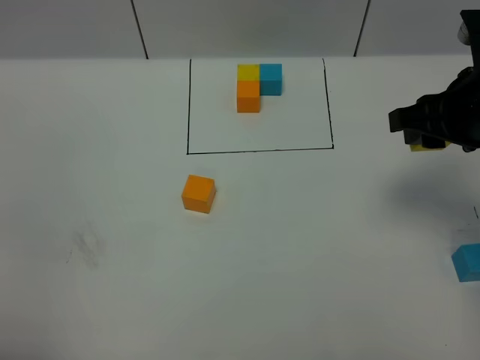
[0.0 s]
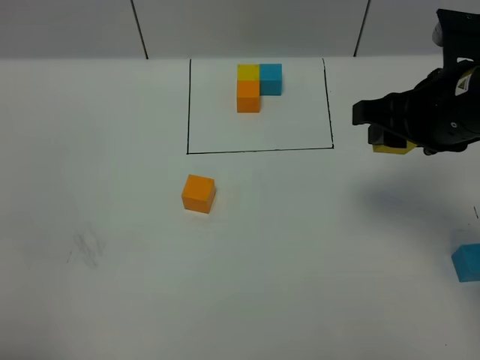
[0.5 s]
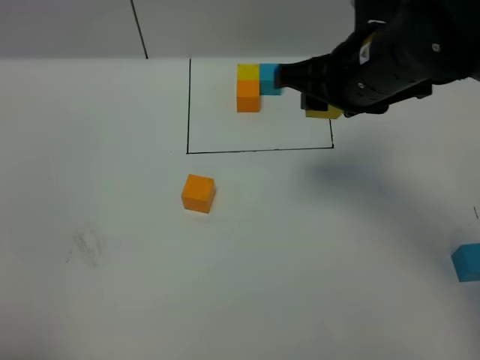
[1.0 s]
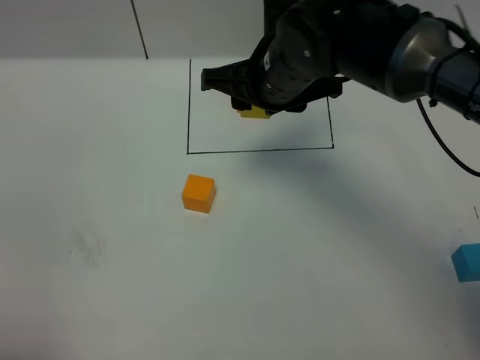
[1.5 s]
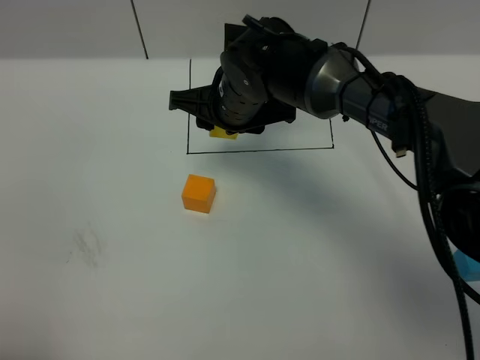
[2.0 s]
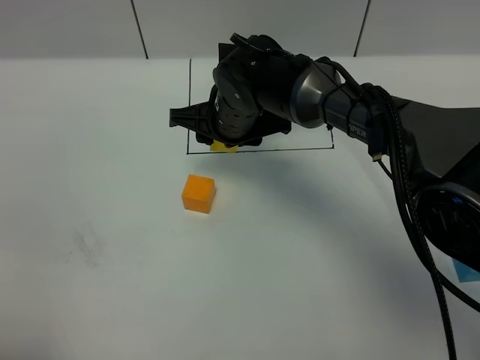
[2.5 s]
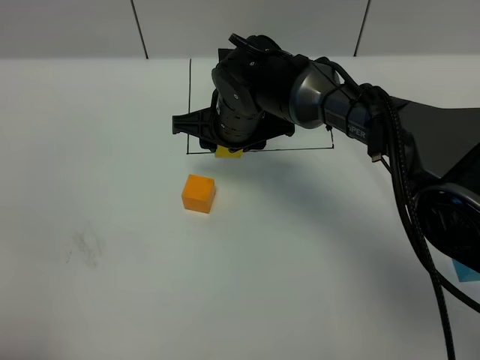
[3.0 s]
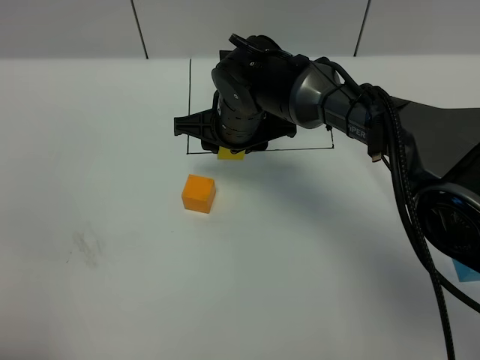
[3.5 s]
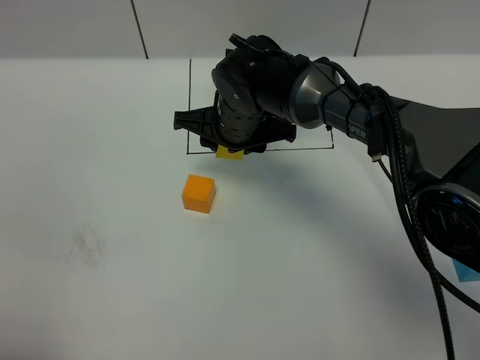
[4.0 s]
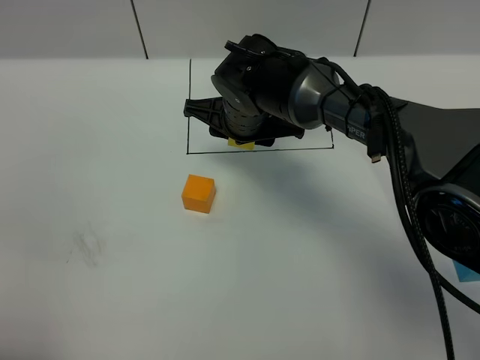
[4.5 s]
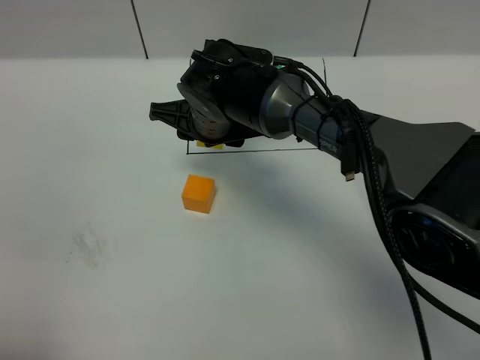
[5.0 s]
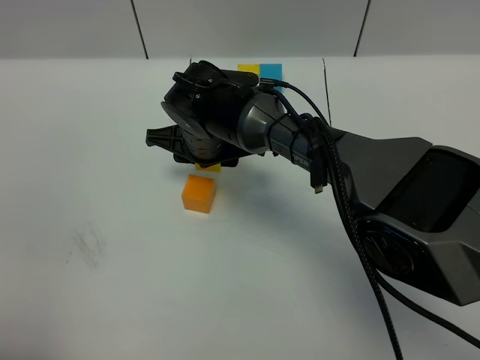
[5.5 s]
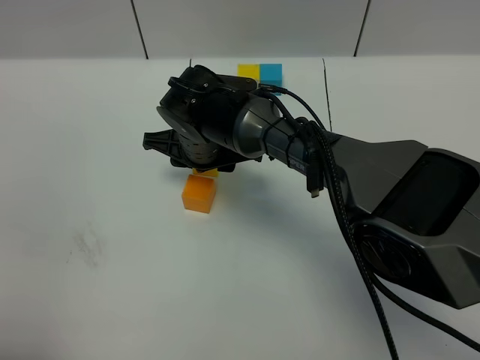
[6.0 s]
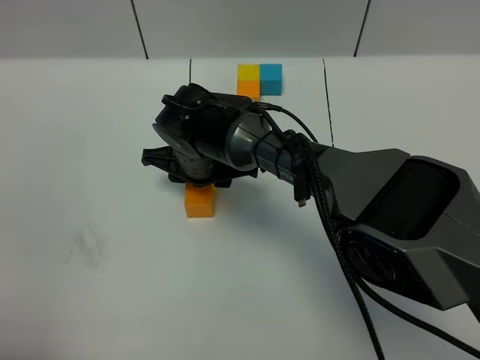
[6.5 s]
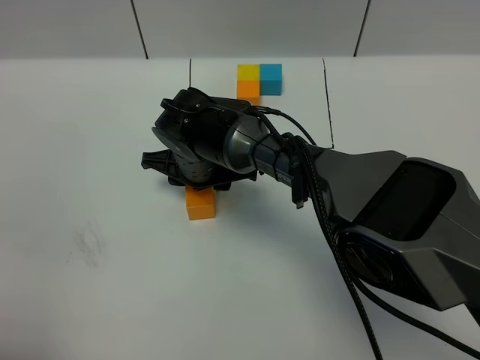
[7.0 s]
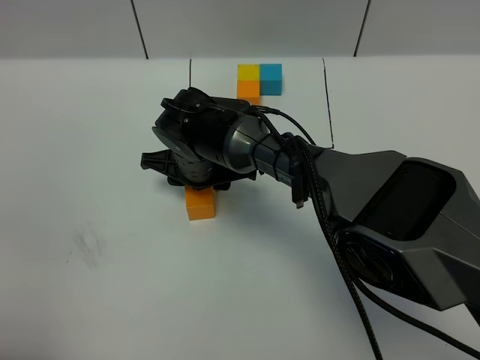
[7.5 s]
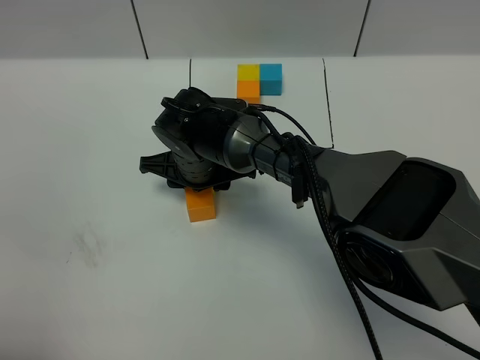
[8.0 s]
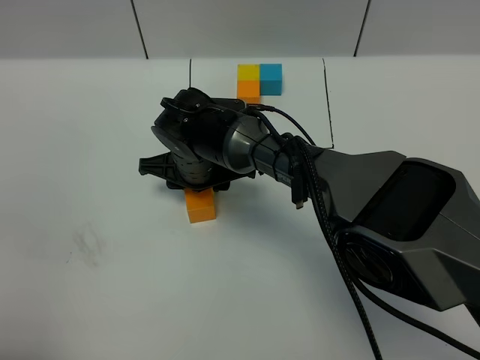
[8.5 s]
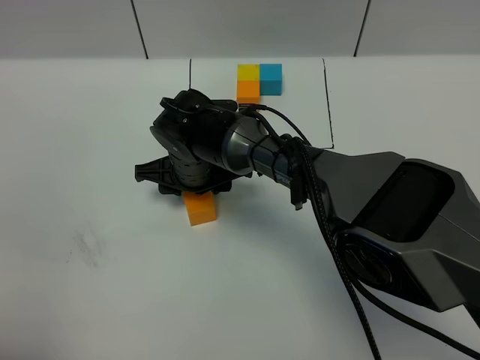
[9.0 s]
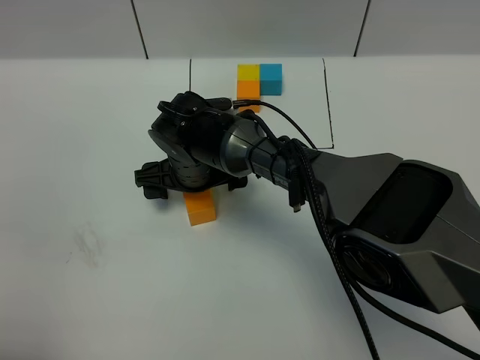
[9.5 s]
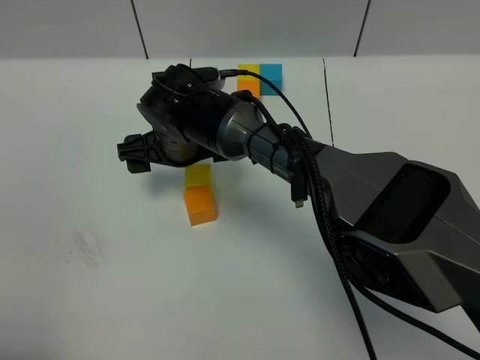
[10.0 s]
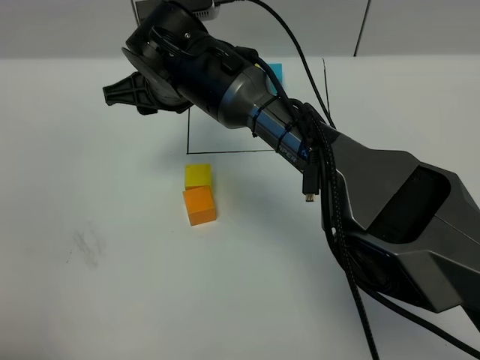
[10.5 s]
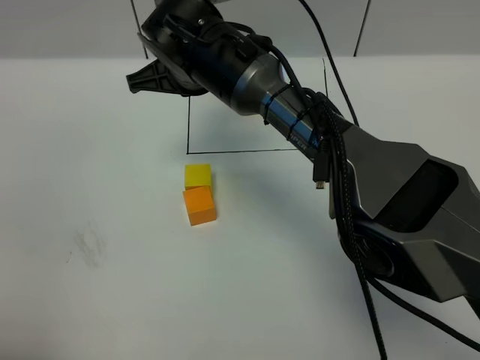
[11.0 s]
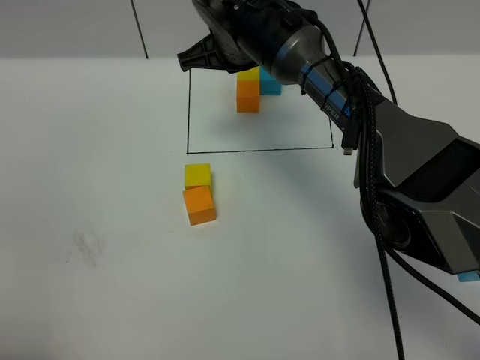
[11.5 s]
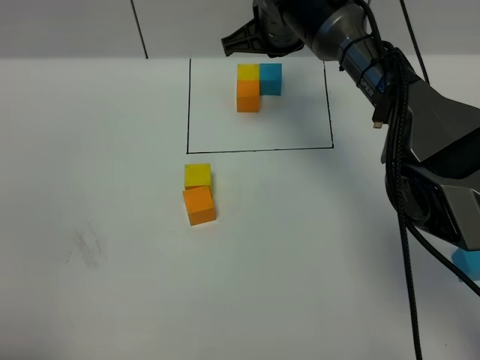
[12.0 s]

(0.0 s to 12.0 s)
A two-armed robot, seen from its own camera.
Task of the whole recording: According to the building block template in front, assemble the scattered blocks together.
Step, 0.0 s - 9.5 s: Put the yellow cube on the behind of the orange cube.
0.0 s - 2.0 s: The right gripper is displaced to the left and forward by approximately 25 cm.
2.0 s - 4.0 s: The grippers stay close to where they were, moving slightly.
4.0 s - 6.0 s: The right gripper moves to the left, some 5 cm.
6.0 s - 8.0 s: The grippers move only a little.
8.0 s - 10.0 s: The right gripper opens its fingers.
10.0 s - 12.0 s: The right gripper travels to the right, forward and upward by some 20 cm, and closes its fingers.

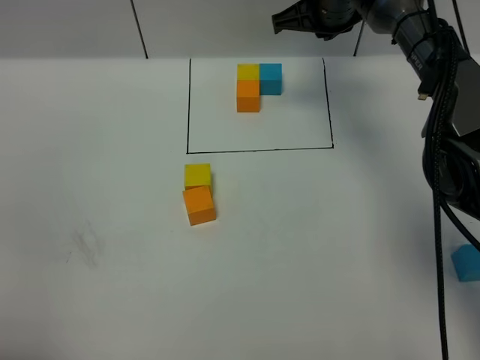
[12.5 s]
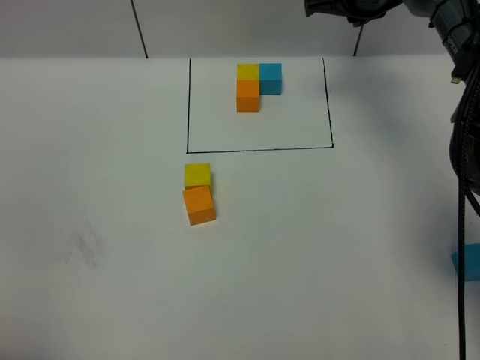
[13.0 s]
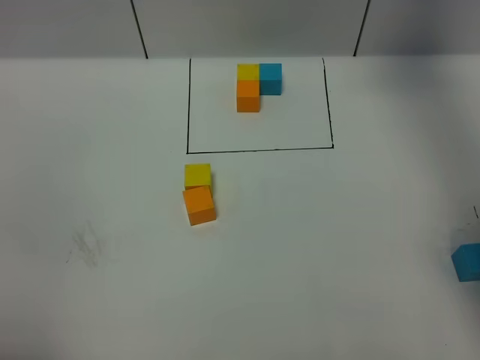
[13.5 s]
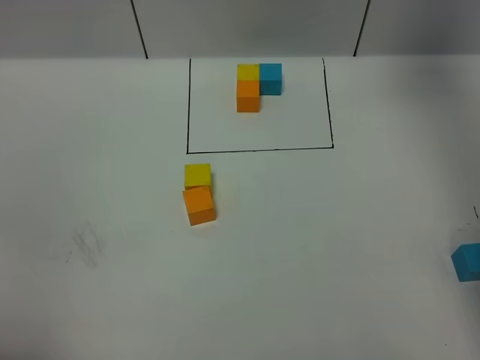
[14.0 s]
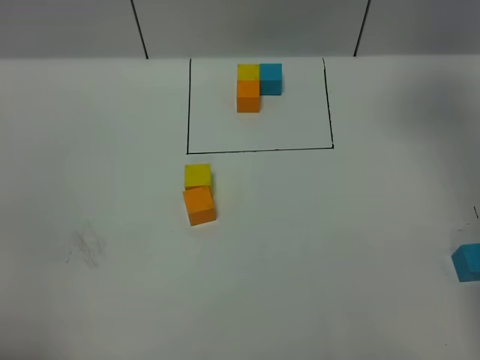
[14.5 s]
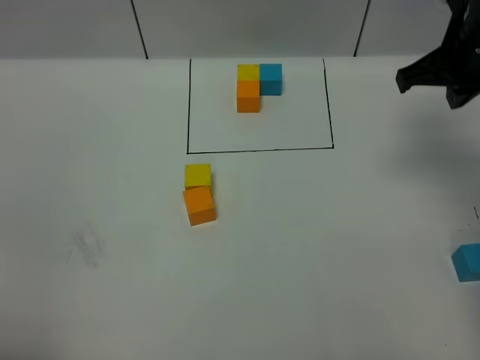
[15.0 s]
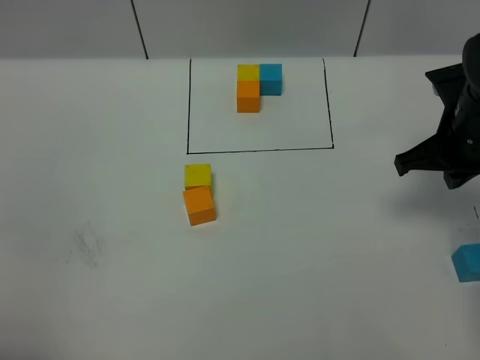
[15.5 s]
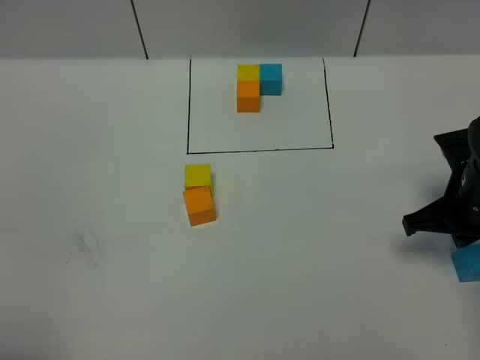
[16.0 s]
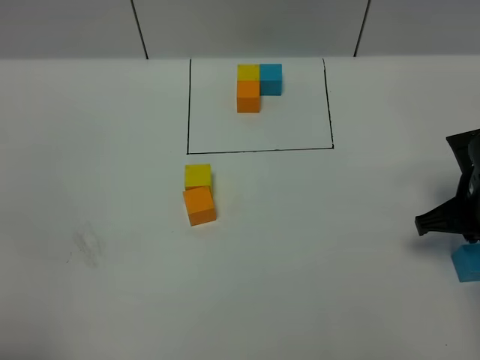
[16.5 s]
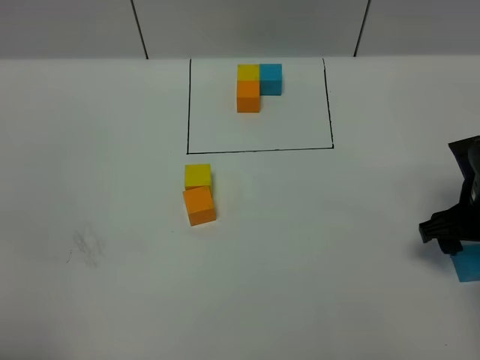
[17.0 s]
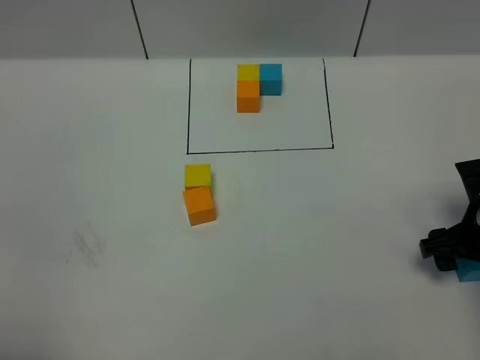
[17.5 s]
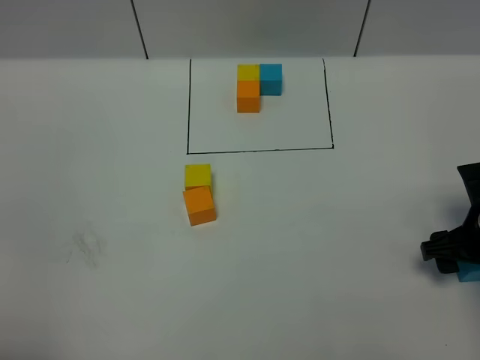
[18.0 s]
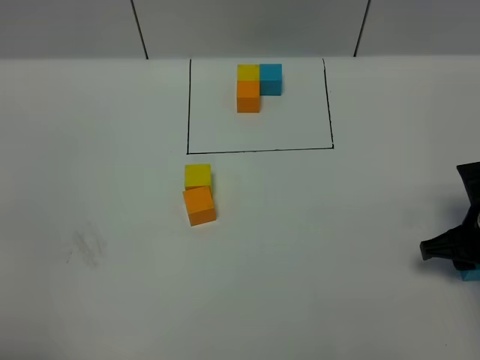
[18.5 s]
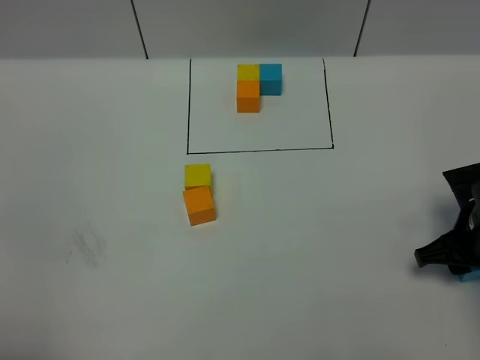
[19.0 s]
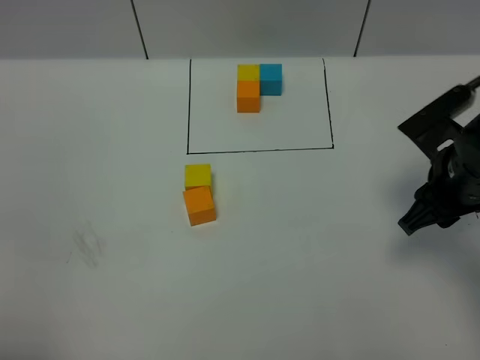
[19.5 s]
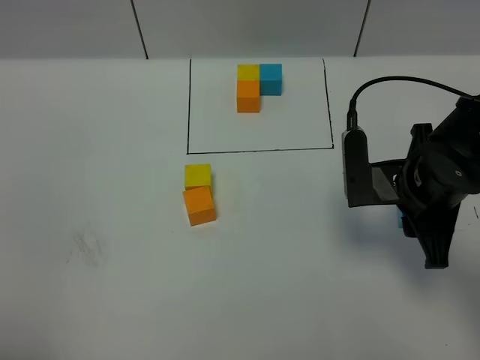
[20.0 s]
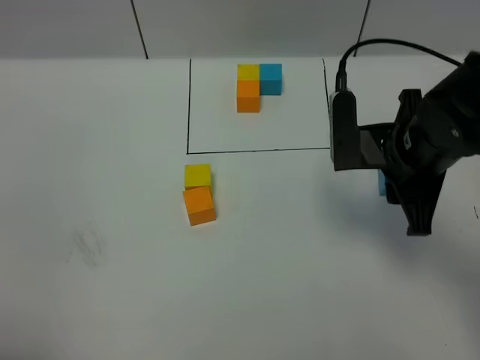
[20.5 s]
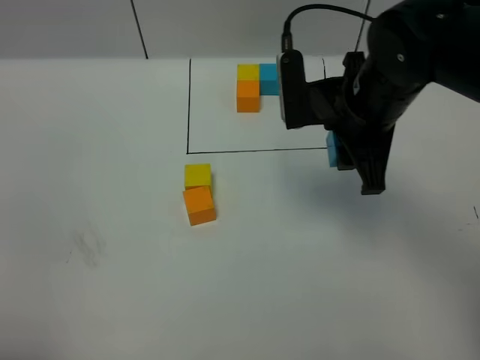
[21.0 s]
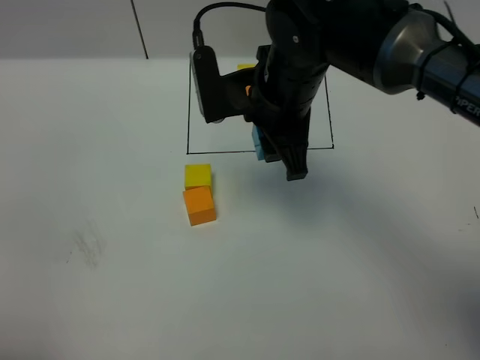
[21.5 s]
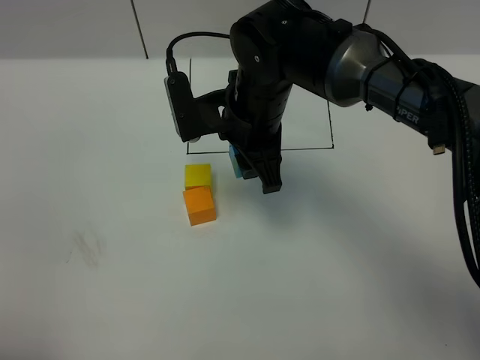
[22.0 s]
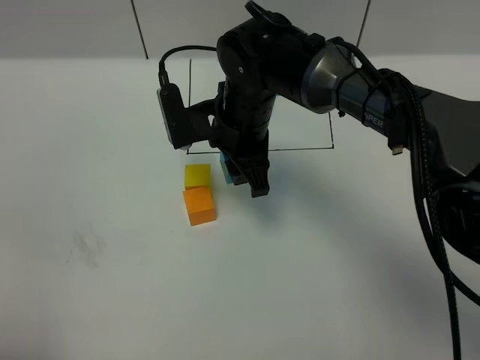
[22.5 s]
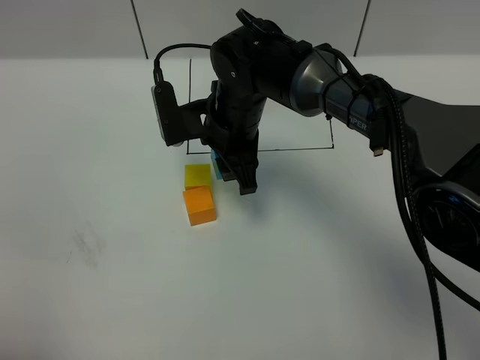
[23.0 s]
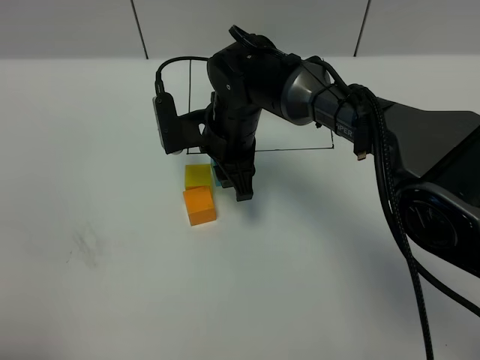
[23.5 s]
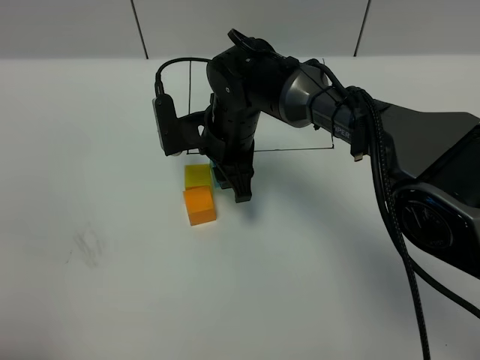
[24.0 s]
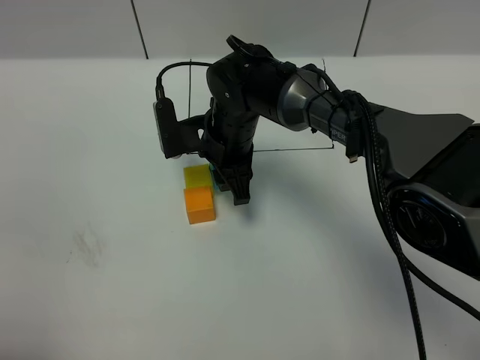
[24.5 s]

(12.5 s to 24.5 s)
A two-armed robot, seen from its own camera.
Task of the whole recording: According to the building block template in front, assemble the scattered blocks together.
12.5 s - 14.5 s: The right gripper moves upward, backward and to the right, roughly 20 cm.
14.5 s - 16.5 s: The right gripper is displaced downward and backward by approximately 25 cm.
16.5 s - 18.5 s: The right gripper opens.
18.5 s - 20.5 s: The right gripper is displaced upward and to the left by about 15 cm.
20.5 s - 22.5 s: The right gripper heads to the left and forward, covering some 20 cm.
22.5 s - 24.5 s: The right gripper moves some 5 cm.

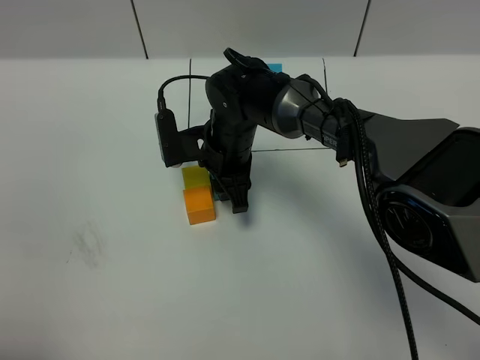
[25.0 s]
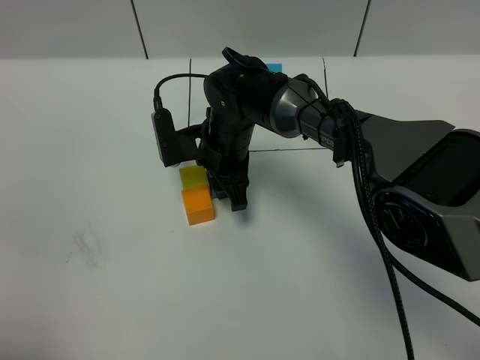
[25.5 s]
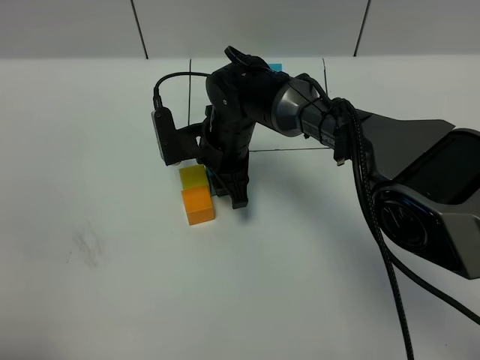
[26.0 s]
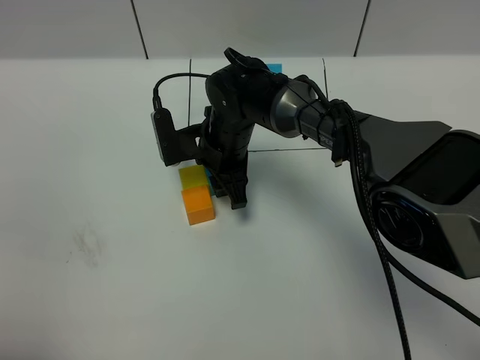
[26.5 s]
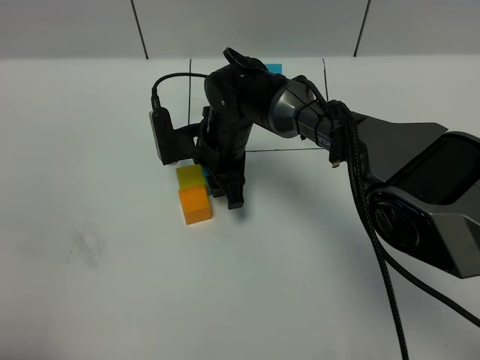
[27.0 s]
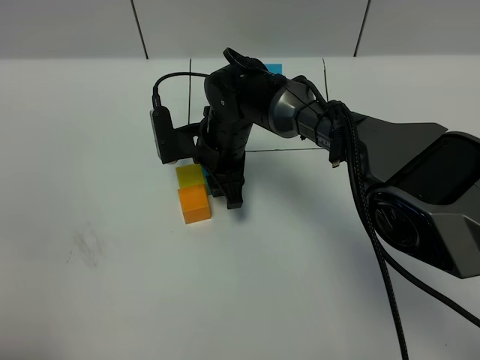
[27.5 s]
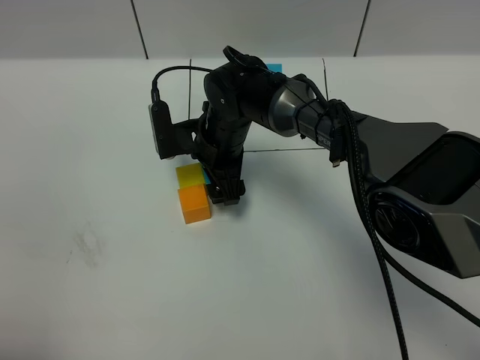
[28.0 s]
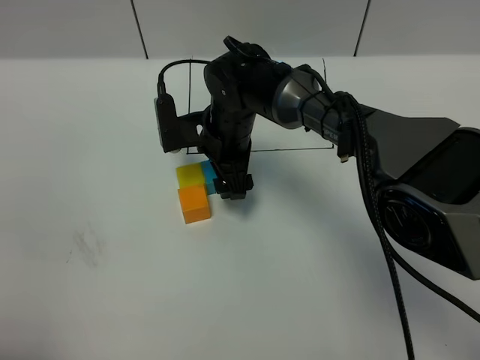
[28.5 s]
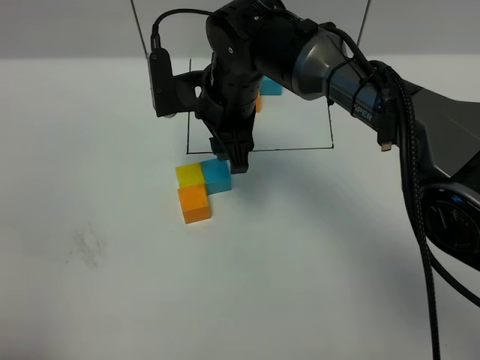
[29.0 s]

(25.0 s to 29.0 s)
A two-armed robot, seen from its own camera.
Task of the whole recording: According to the building block template in front, assemble the scattered blocks together.
Step, 25.0 s - 28.5 s: Put the green cube on the right of the yellow cube.
25.0 s - 27.0 s: The grippers stay close to where they were, moving slightly.
27.0 s - 29.0 s: The right gripper goes approximately 10 cm upward, and opens, then closes again.
